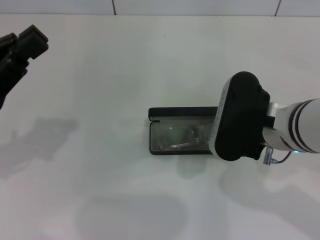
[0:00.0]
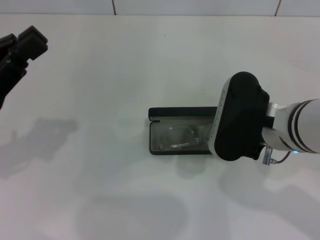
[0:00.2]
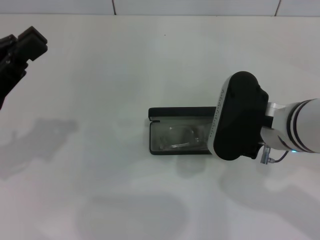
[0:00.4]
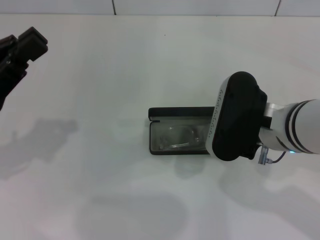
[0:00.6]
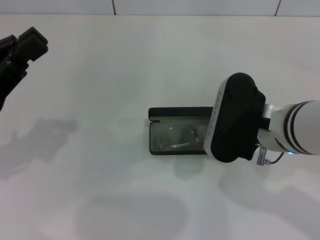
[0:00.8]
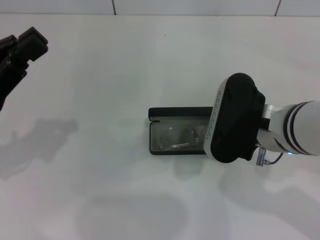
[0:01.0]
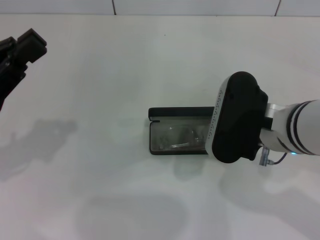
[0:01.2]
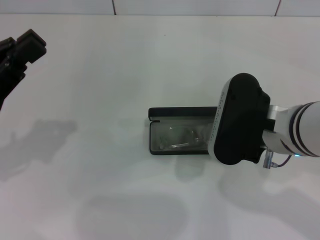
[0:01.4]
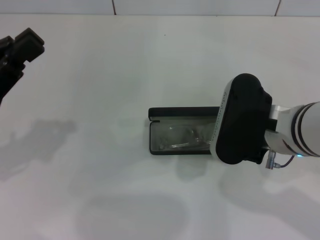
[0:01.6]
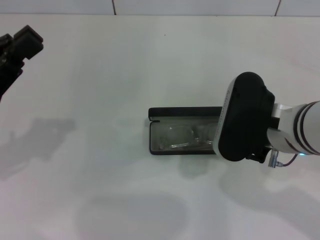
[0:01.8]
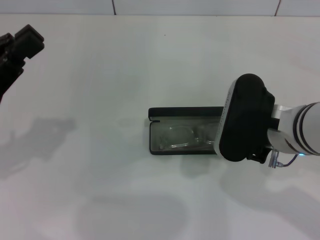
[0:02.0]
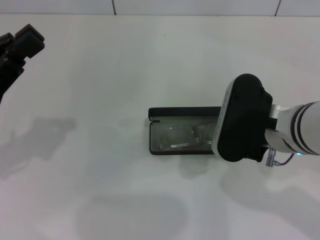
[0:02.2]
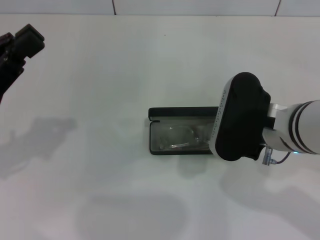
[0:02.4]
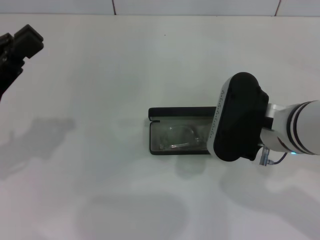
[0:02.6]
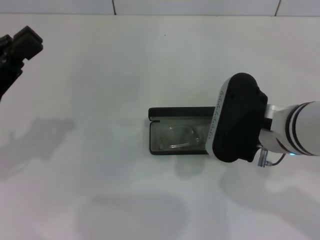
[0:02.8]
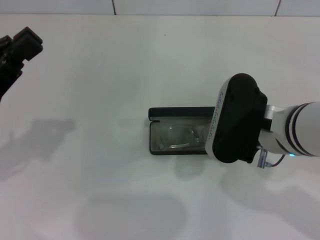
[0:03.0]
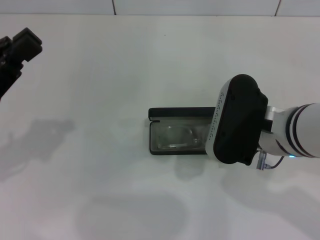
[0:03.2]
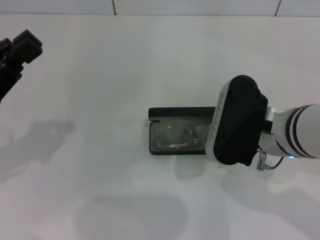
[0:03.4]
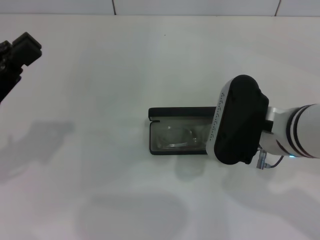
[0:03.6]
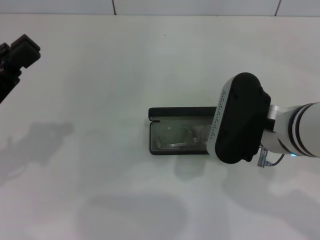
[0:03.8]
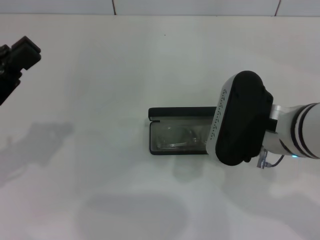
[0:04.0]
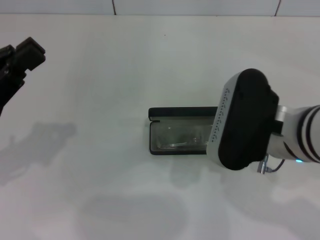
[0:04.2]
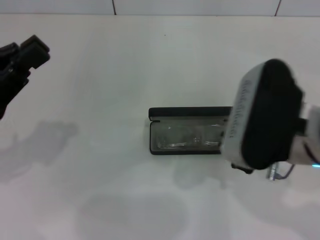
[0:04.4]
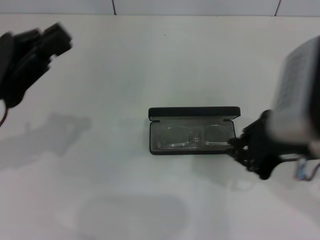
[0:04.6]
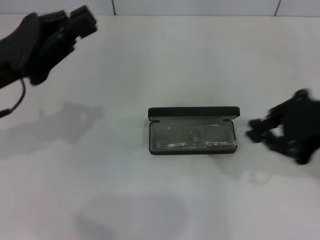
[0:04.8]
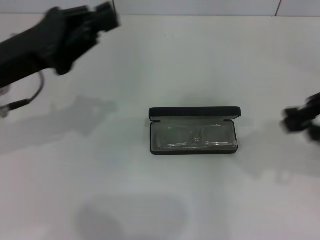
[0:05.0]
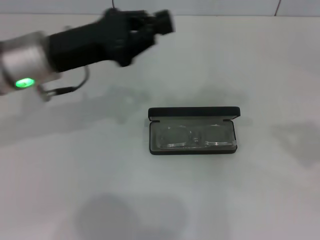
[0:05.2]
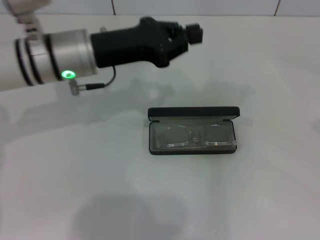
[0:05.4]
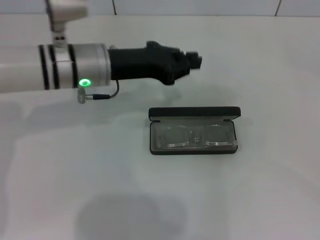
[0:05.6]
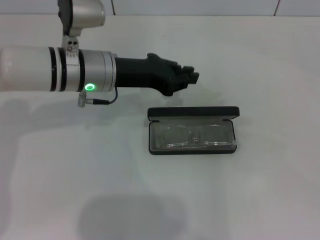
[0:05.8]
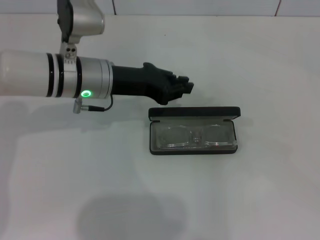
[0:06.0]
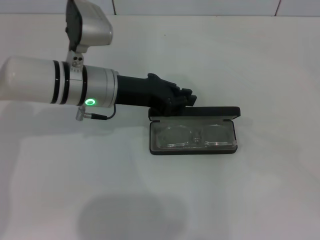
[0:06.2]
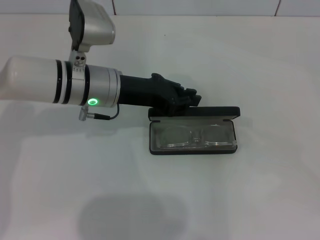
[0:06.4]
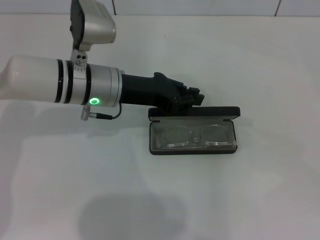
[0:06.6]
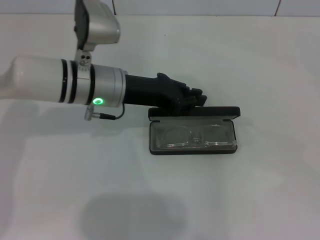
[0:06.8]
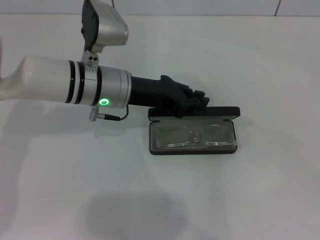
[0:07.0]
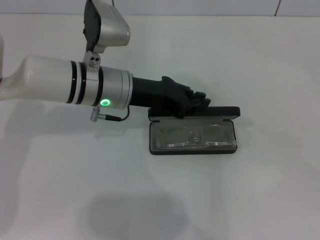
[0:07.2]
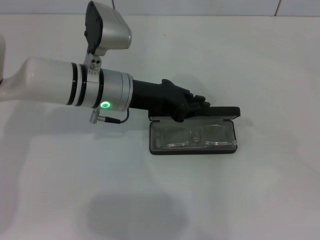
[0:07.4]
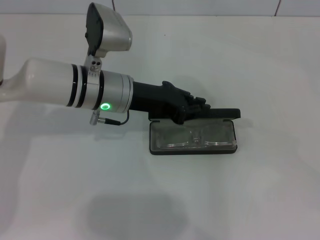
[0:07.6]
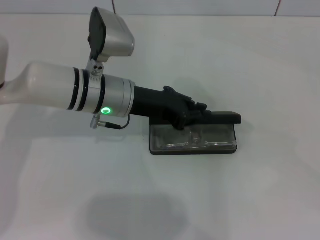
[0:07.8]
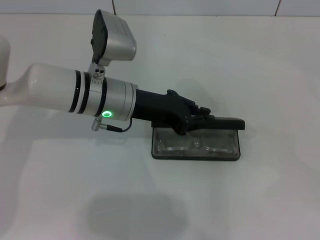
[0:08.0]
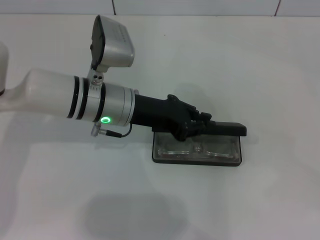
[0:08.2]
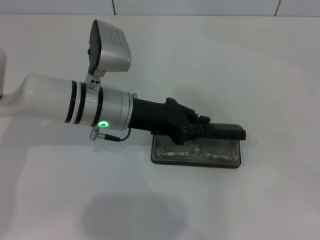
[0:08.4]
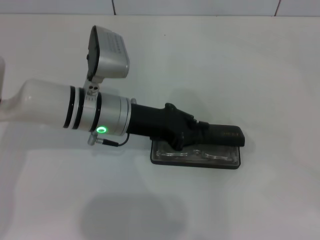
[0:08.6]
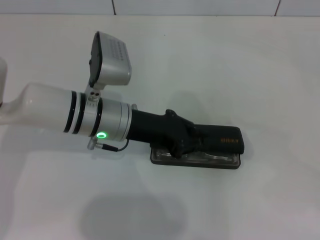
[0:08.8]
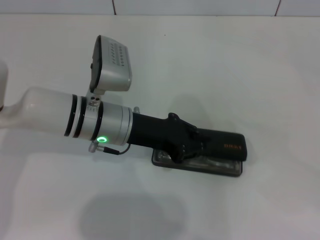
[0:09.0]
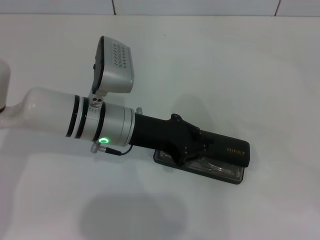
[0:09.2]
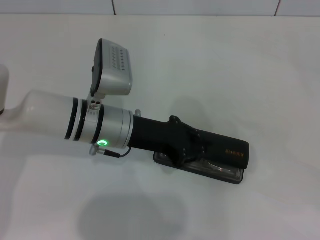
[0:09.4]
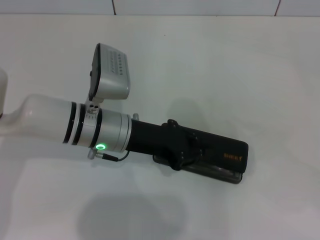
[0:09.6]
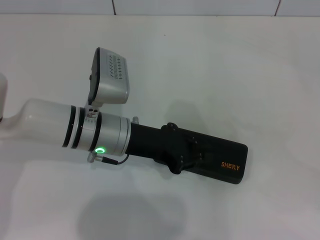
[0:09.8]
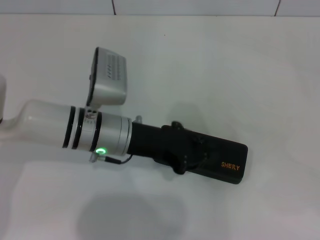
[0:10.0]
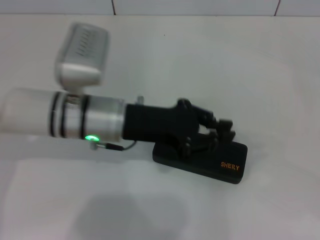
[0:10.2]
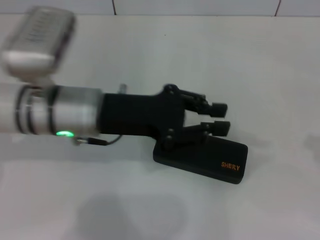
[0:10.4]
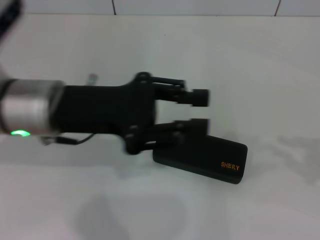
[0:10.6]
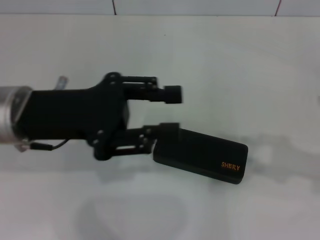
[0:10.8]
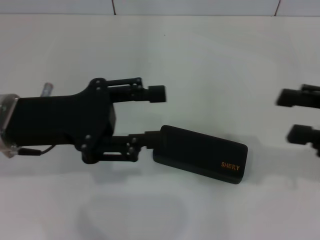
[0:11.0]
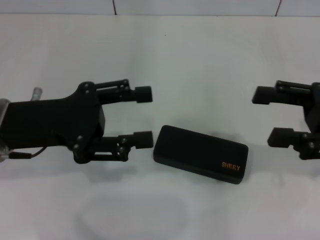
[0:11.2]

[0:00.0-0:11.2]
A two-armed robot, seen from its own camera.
Step, 0:00.0 to 0:10.0: Close the glasses case with your left hand.
0:00.0 to 0:03.2: Both grippers stay about where they are.
0:03.2 to 0:04.8: The left gripper shifts by approximately 5 cm. Meanwhile the right gripper goes approximately 15 cm upward and to the right.
0:04.8 to 0:06.4: The right gripper travels to the right by about 25 cm. Meanwhile the left gripper travels to the right and forward by about 15 cm.
0:06.4 to 0:09.6: There are only small adjustments of the grippers.
0:09.6 to 0:11.2: The right gripper goes about 20 cm to the left and forward, and opens. Meanwhile the left gripper moves to the left, upward and backward, roughly 15 cm, and opens.

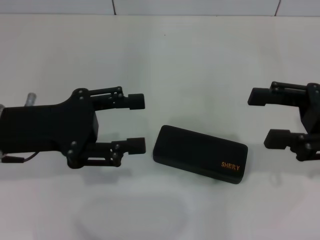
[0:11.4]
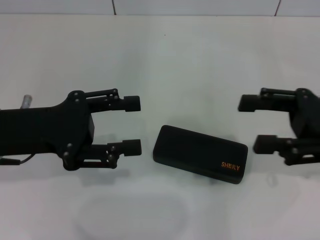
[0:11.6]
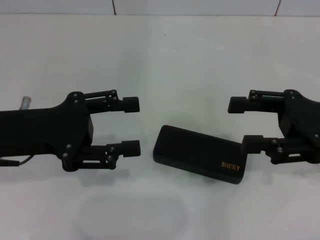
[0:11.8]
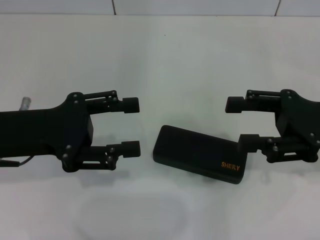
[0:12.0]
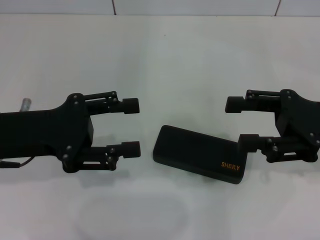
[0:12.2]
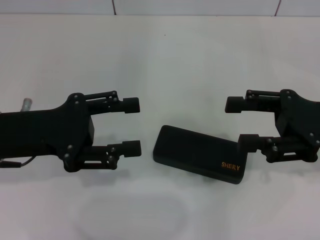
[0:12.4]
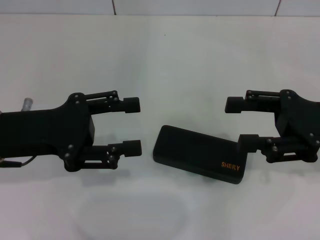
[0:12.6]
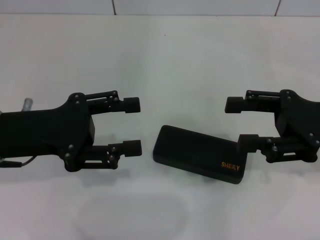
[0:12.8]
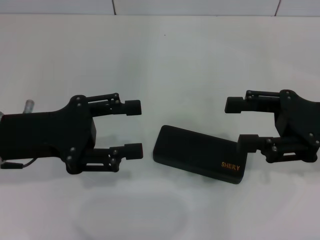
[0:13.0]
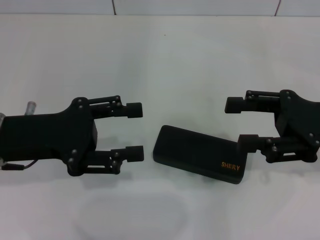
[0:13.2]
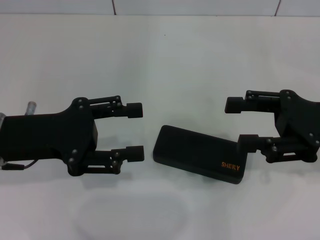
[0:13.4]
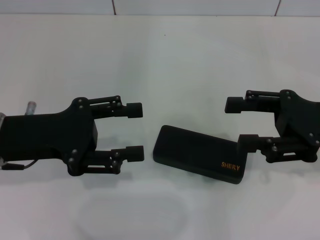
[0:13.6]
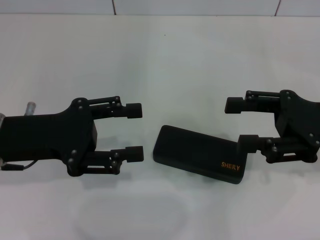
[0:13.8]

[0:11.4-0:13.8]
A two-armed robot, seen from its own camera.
0:11.4 to 0:12.6: The grippers make only small movements.
0:12.6 to 0:13.8: Both grippers stay about where they are.
